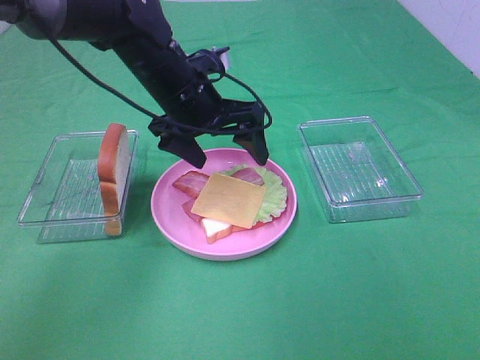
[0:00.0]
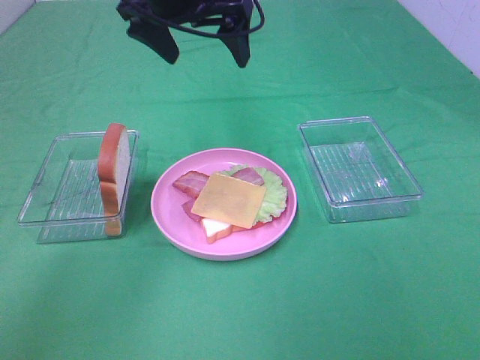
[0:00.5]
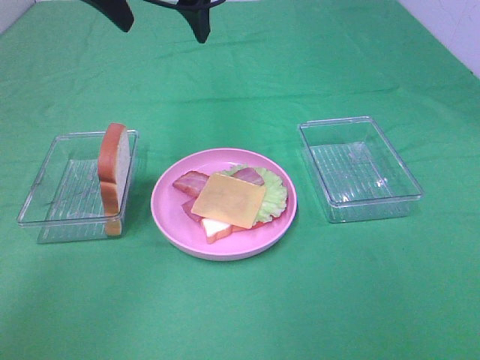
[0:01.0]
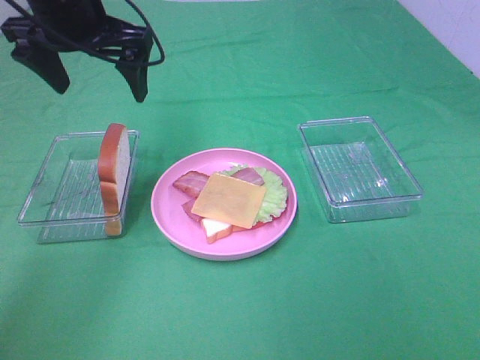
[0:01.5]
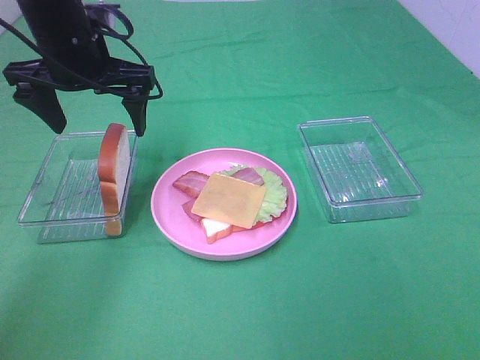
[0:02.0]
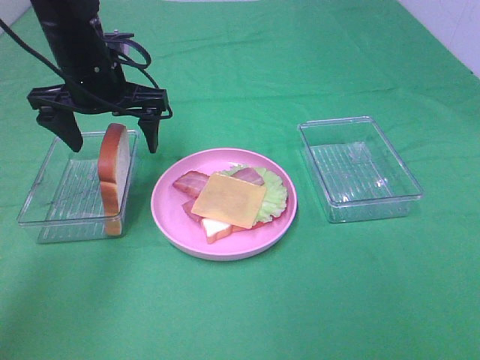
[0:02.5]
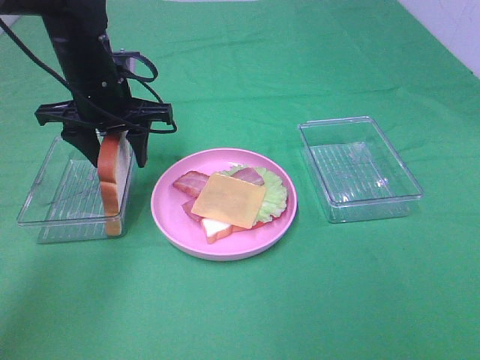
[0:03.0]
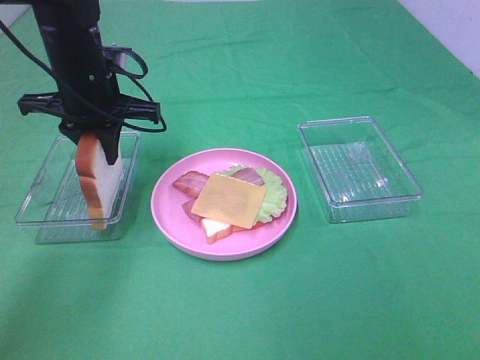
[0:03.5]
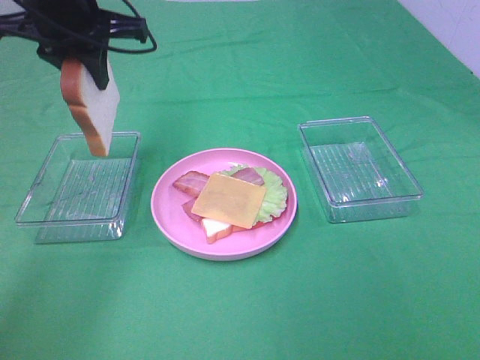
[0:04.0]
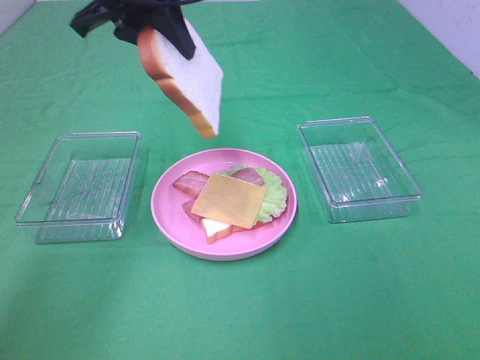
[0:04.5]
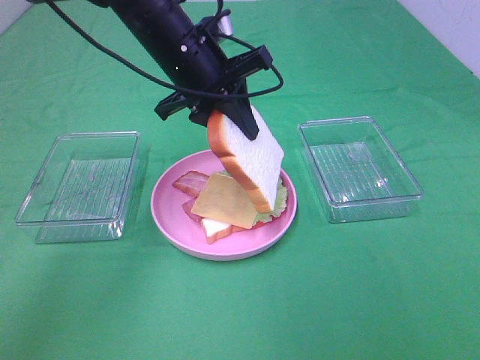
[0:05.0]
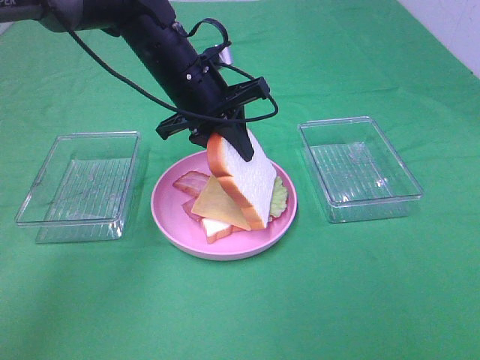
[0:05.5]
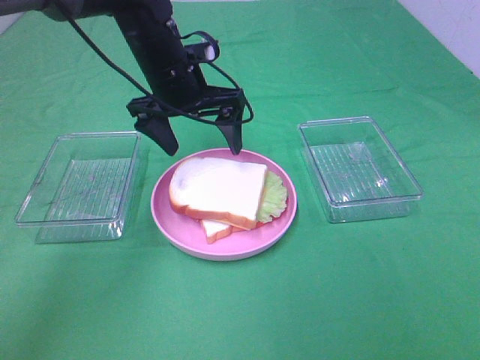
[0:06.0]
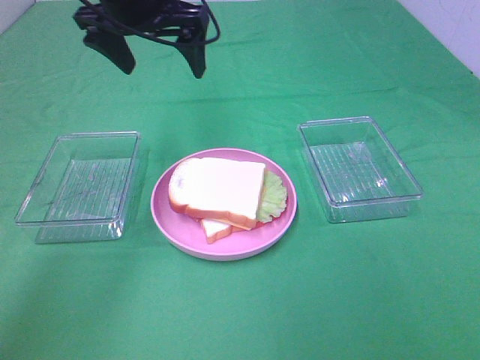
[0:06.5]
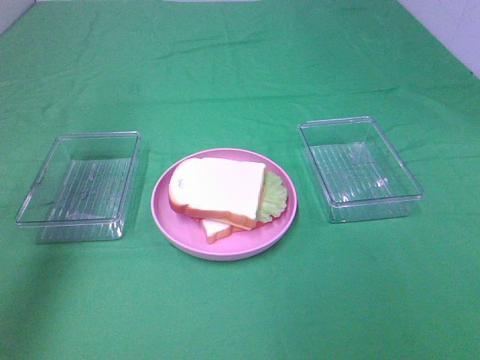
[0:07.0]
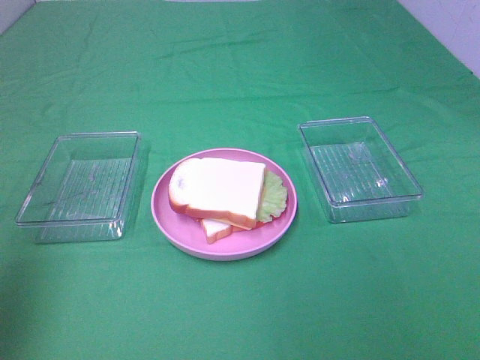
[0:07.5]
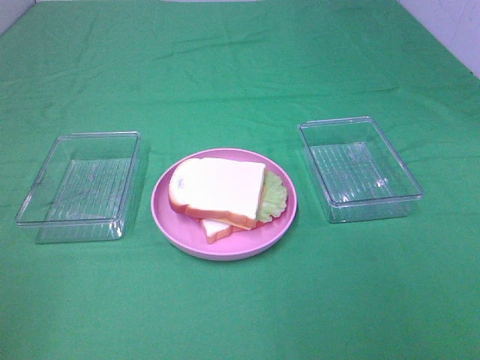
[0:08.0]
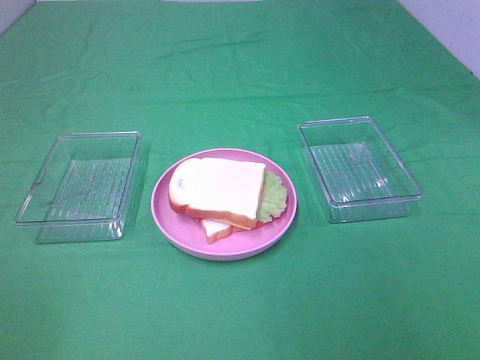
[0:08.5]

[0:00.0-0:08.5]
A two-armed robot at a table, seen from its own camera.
Task of the whole recording: Make sandwiches.
Step, 0.0 to 3.0 s: Left hand:grab the bread slice.
Step, 3.5 to 6.0 s: Left hand:place the bread slice on the cheese slice.
0.0 to 2.0 s: The left gripper shifts approximately 10 cm to the left and upward.
2.0 to 4.0 s: The left gripper travels upward by roughly 5 cm, and closes its fingers.
4.0 to 6.5 s: The left gripper moves to the right, some 5 cm, goes downward and returns, about 10 cm each way, and opens.
6.5 to 8.5 s: The left gripper moves backward and to the left, roughly 50 cm.

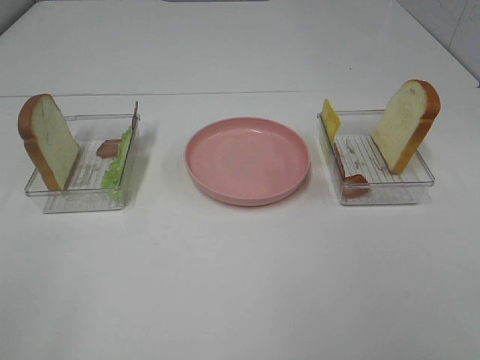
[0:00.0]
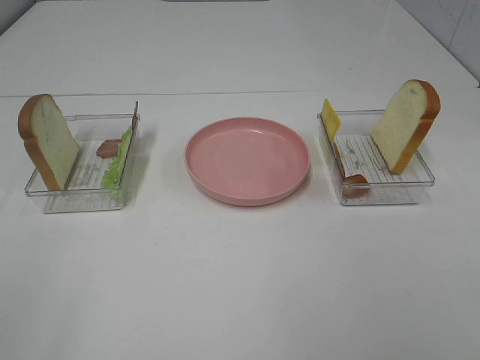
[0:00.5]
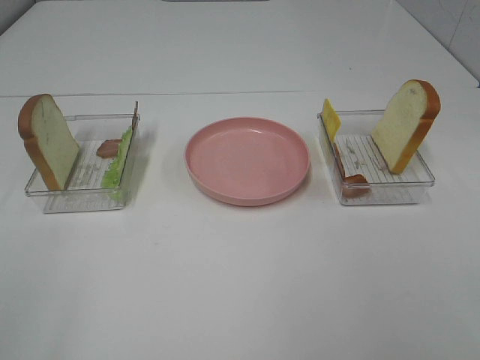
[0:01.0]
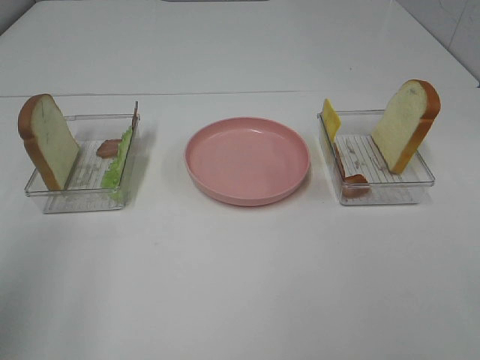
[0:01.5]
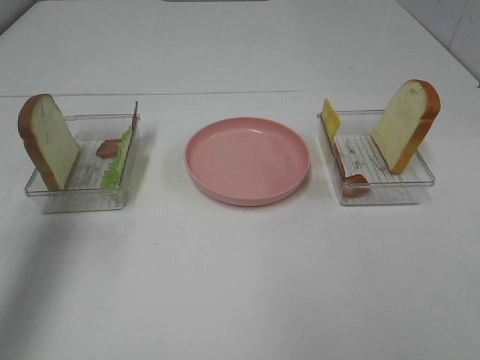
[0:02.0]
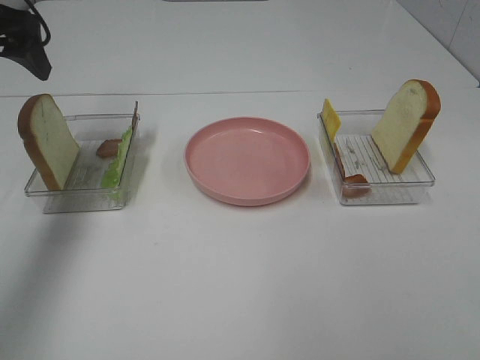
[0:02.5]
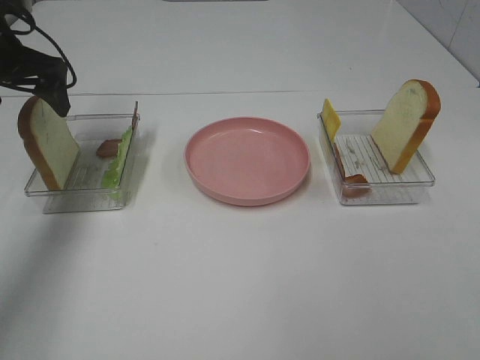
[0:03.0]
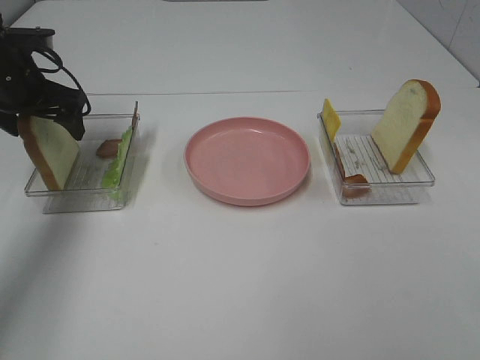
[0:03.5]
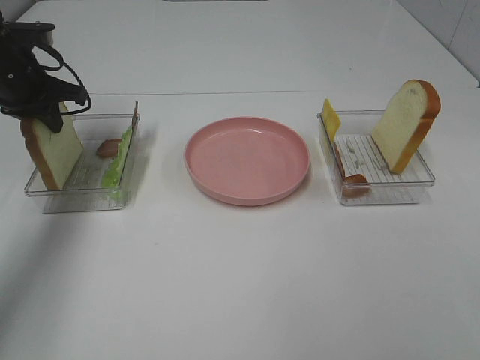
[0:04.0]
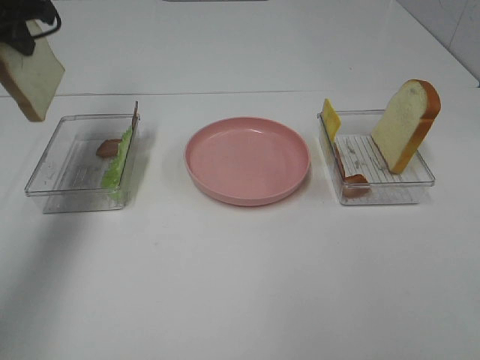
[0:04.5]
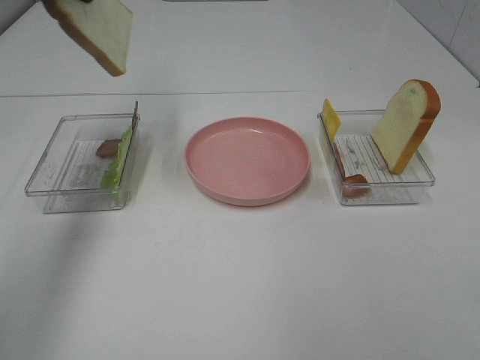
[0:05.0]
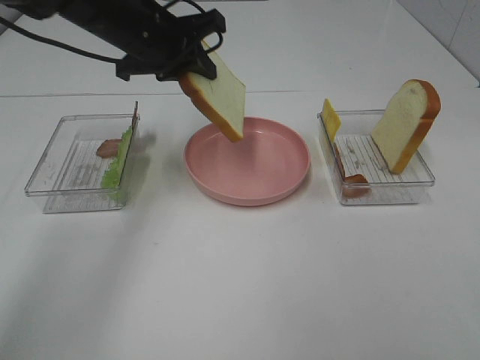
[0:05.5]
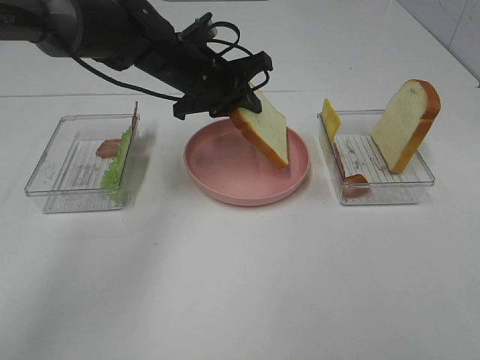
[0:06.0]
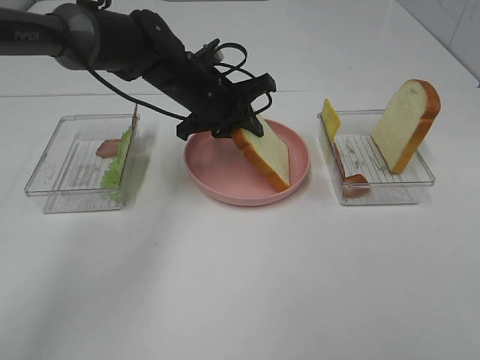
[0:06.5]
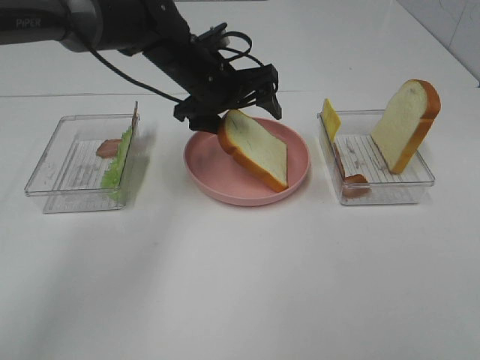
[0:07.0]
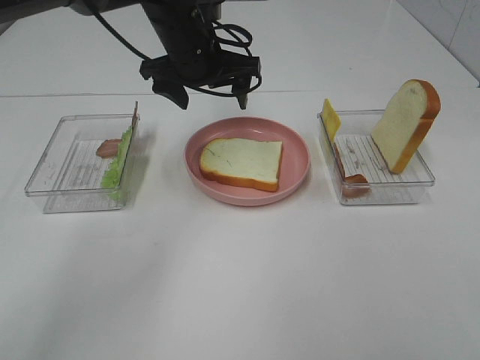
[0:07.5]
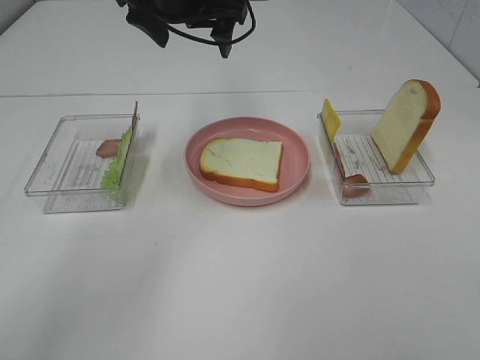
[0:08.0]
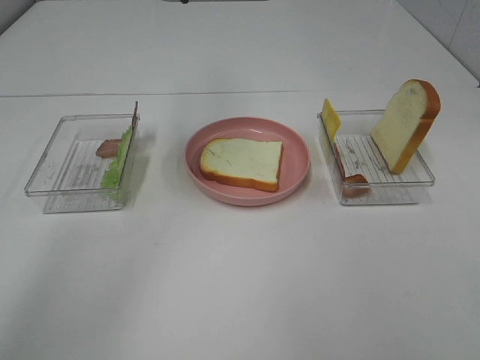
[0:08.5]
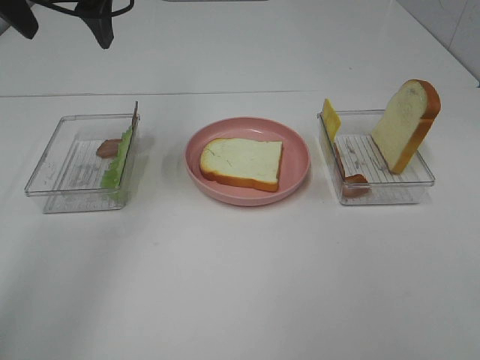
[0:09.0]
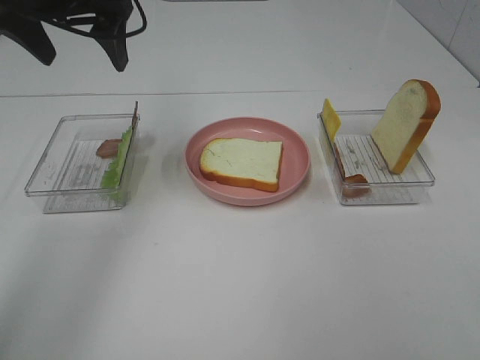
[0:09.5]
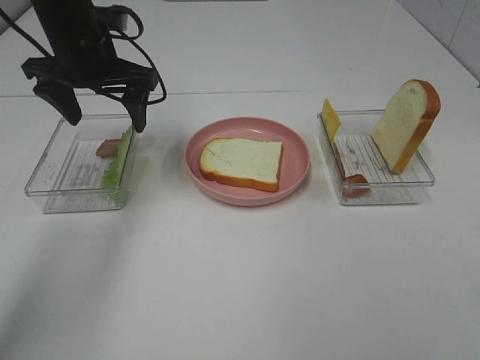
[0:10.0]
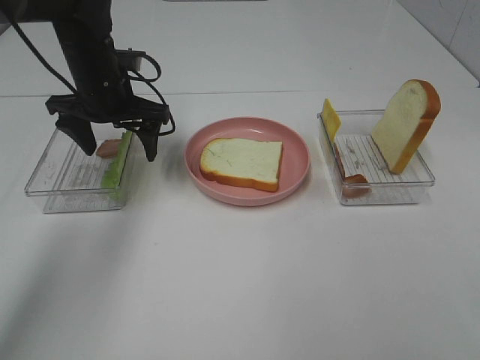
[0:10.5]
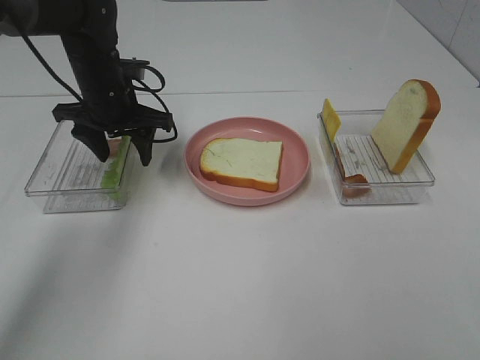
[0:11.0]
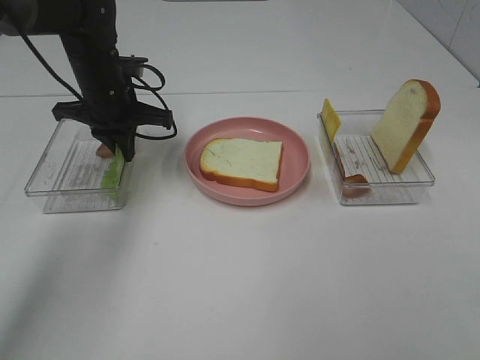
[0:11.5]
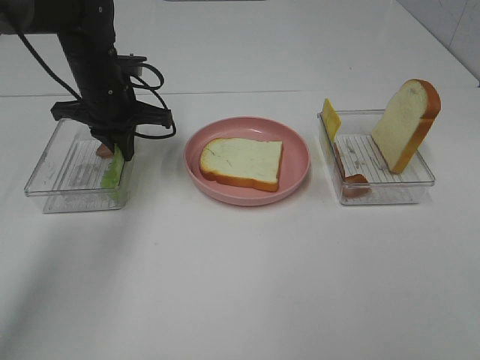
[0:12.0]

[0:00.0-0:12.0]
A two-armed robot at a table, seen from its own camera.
Task of the whole recording: Make sandwiches.
Step, 0.0 to 4.0 s: Left hand:grab the bread slice.
Step, 4.5 to 7.5 s: Left hand:place the bread slice on the plate.
Step, 8.0 to 12.0 s: Left hand:grab the lettuce slice.
0.0 to 2.0 s: The left gripper travels forward by roughly 25 cm.
2.0 to 4.0 s: The left gripper shifts roughly 25 cm forward and downward, and closes up.
4.0 to 6.0 s: The left gripper moves to the right, about 25 cm.
6.0 to 8.0 s: The left gripper heads upward, covering some 10 cm, and opens.
8.0 to 10.0 s: The left gripper heads to the left and downward, covering approximately 10 cm.
10.0 to 12.0 s: The left gripper moves downward, some 5 cm, and closes its fingers.

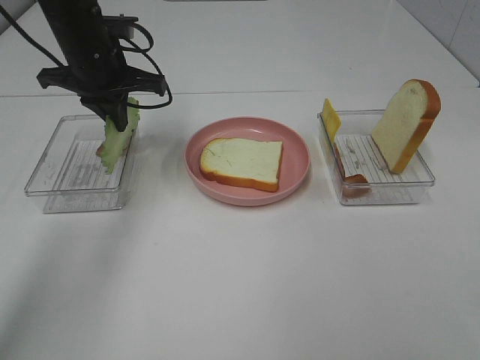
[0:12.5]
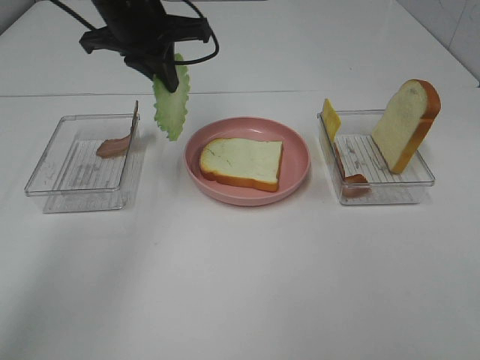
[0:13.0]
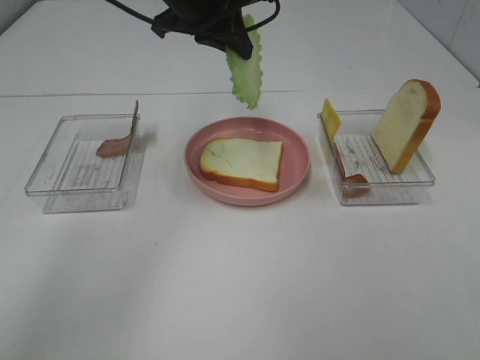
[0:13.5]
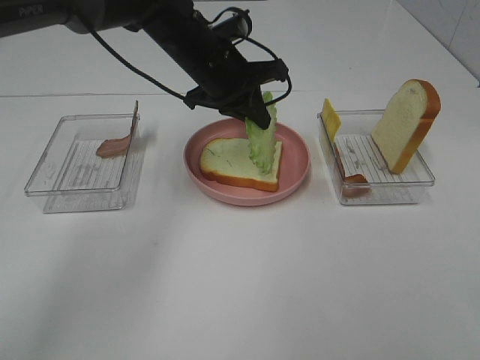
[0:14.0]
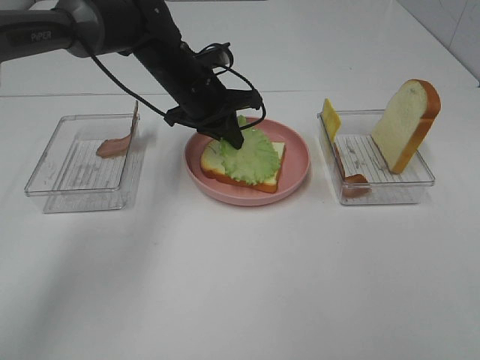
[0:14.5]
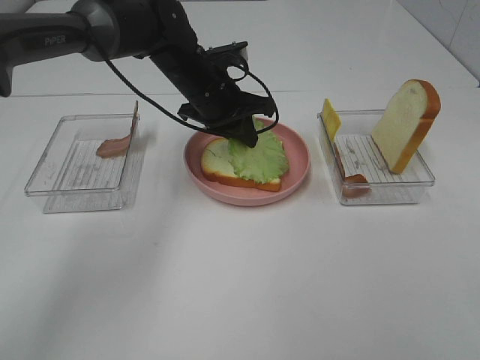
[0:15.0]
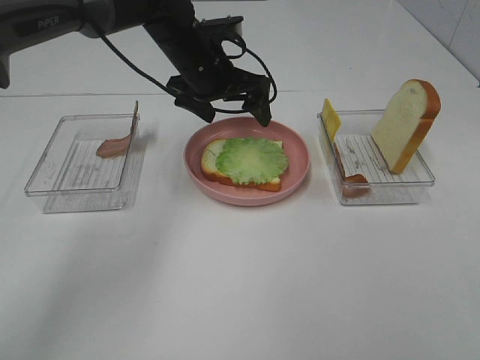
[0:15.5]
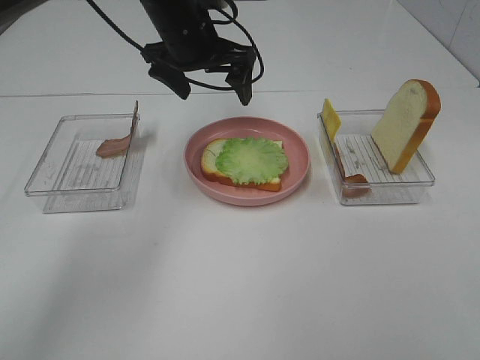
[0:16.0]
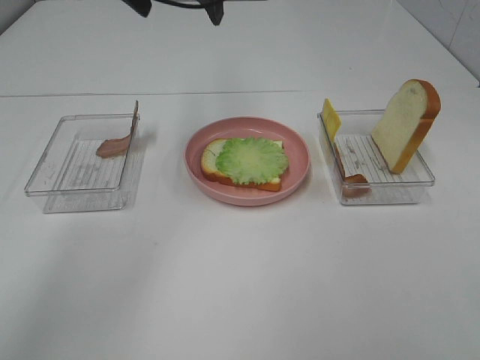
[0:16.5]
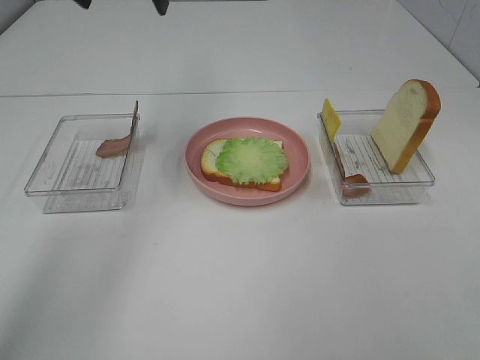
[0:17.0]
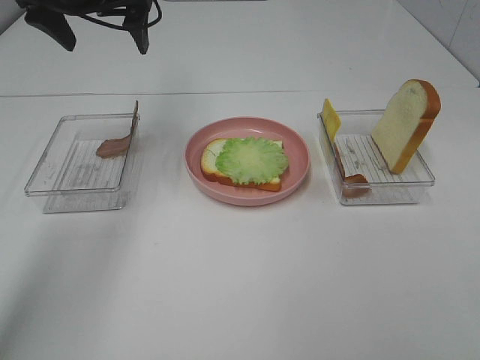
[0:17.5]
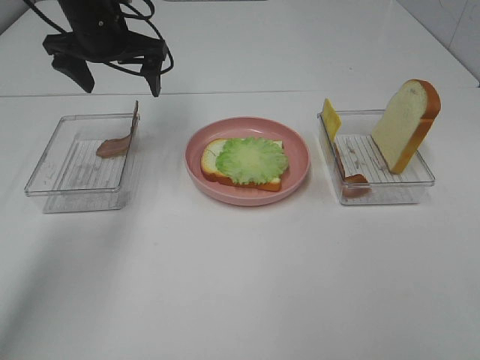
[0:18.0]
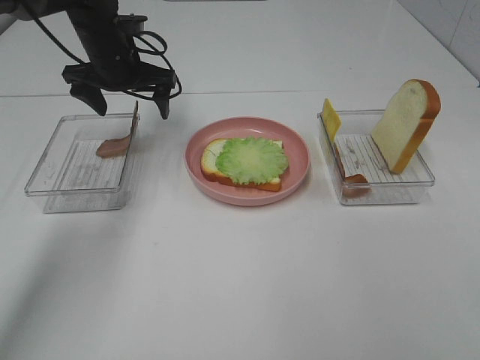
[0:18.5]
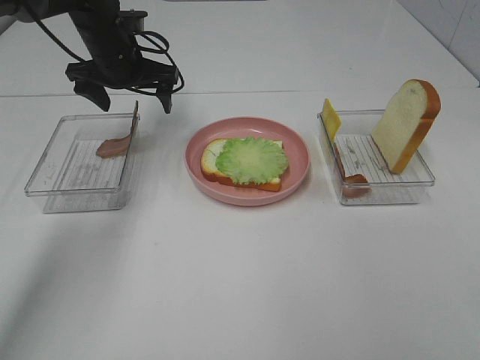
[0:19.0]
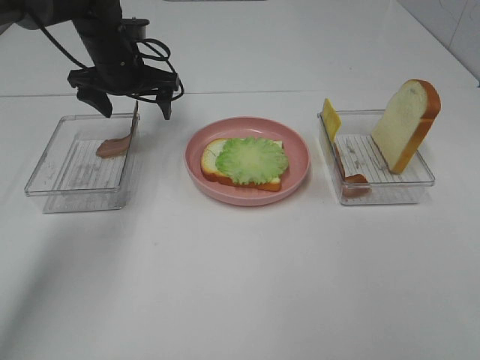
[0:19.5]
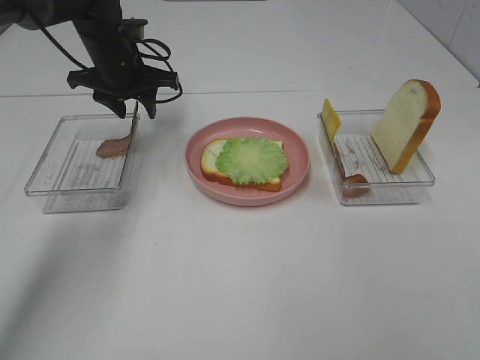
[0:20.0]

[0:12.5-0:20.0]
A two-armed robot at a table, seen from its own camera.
Task of the whole recording: Make sandwiches.
Step, 12.5 to 15.5 s: Left hand:place the lettuce slice on the bread slice.
12.5 to 14.5 s: The left gripper travels to the right and downward by roughly 10 cm.
14.5 to 16.5 s: The left gripper shifts about 20 cm upward, and opens up.
16.5 to 18.0 s: The left gripper moves downward and to the left, approximately 15 cm.
18.0 to 20.0 s: The left gripper is displaced downward by about 5 cm, and closes its fingers.
